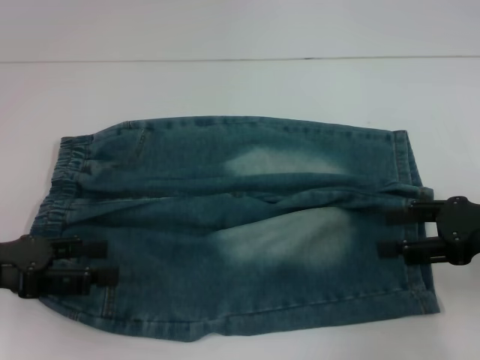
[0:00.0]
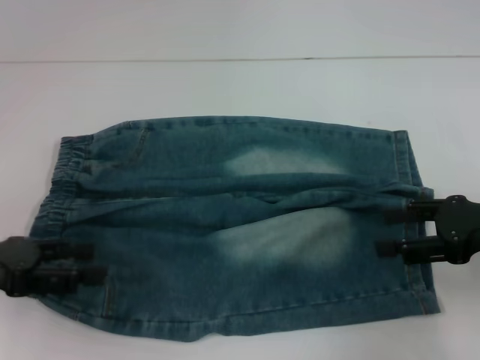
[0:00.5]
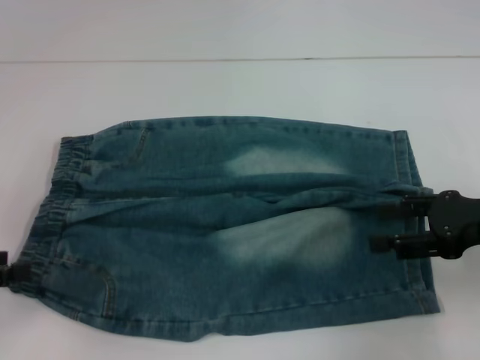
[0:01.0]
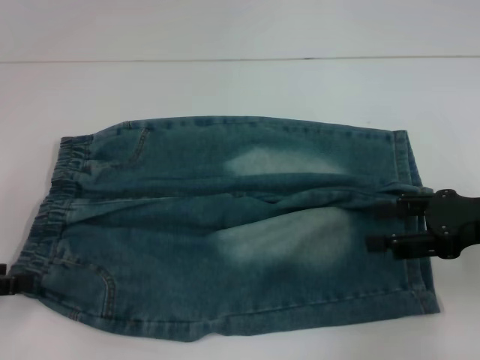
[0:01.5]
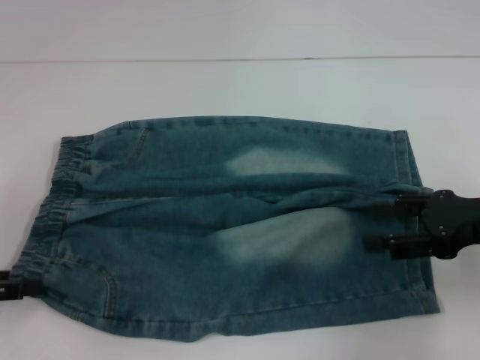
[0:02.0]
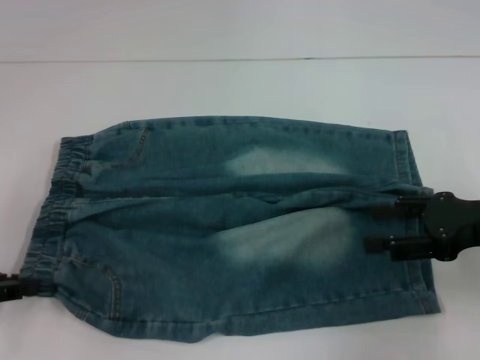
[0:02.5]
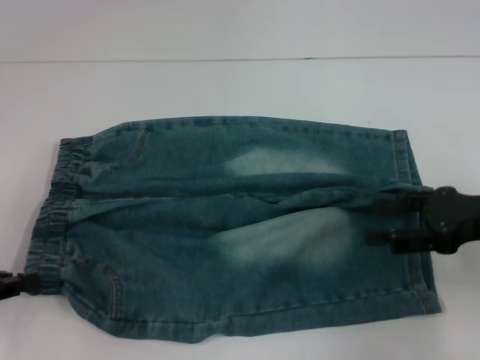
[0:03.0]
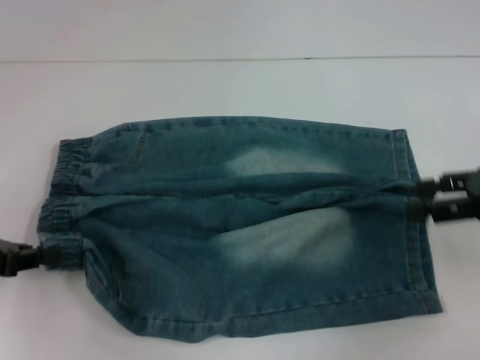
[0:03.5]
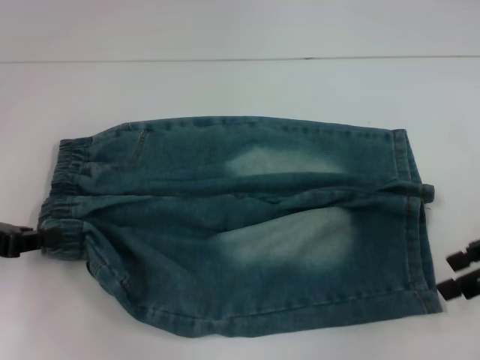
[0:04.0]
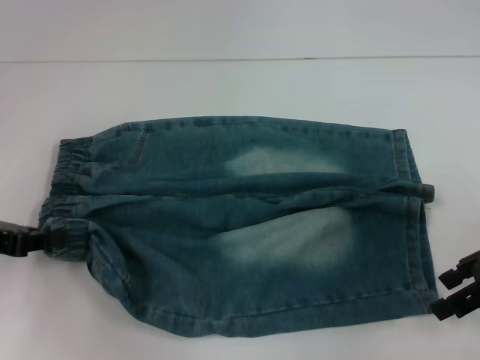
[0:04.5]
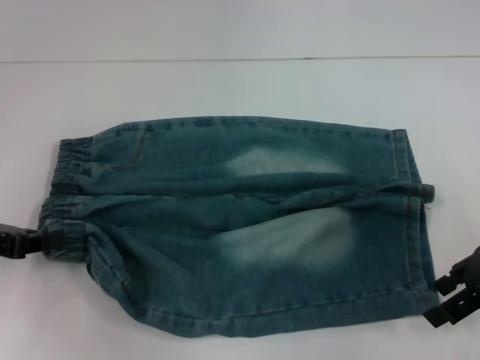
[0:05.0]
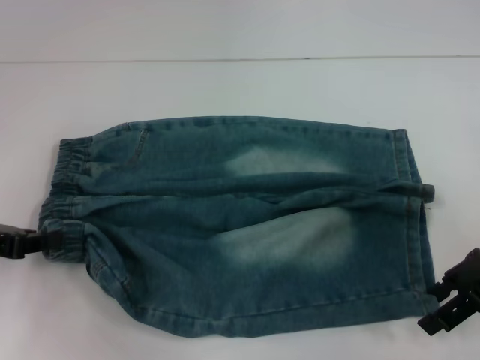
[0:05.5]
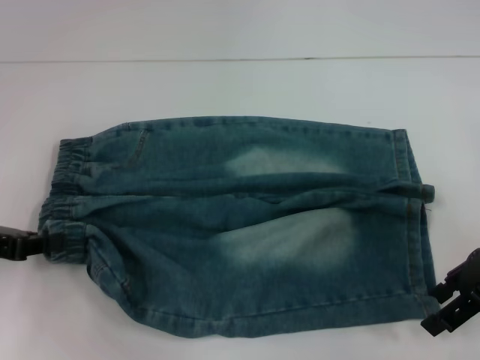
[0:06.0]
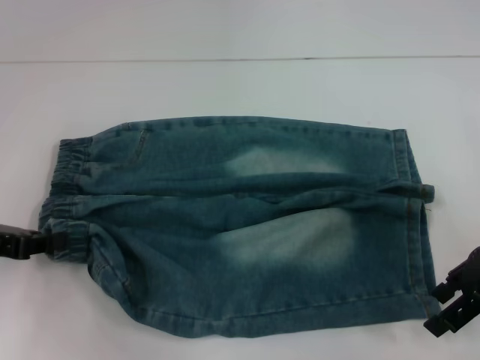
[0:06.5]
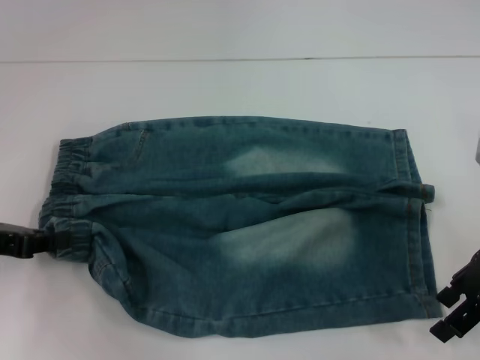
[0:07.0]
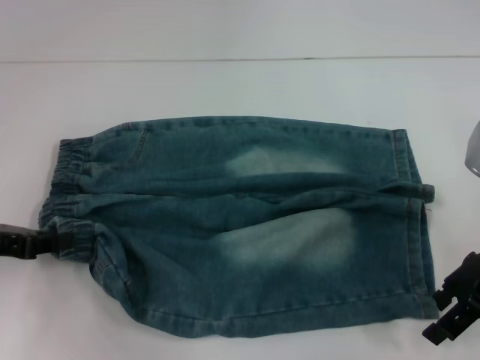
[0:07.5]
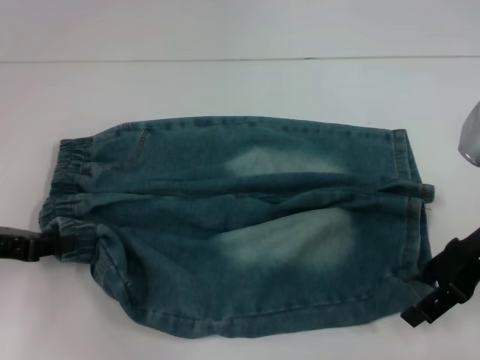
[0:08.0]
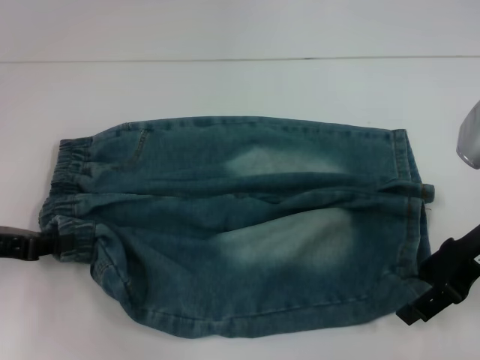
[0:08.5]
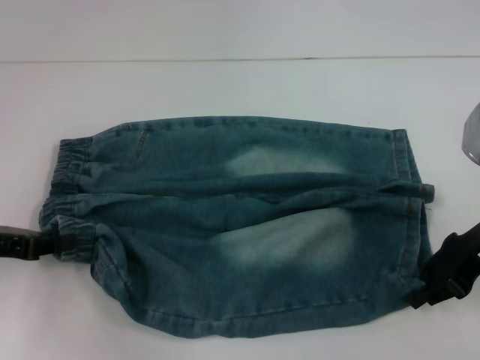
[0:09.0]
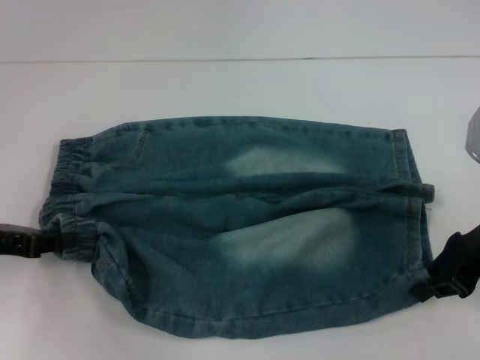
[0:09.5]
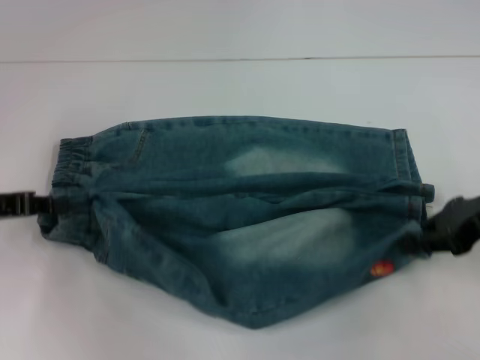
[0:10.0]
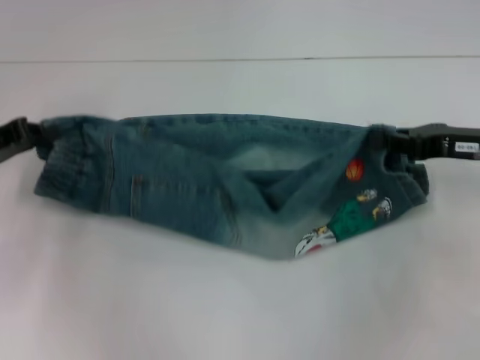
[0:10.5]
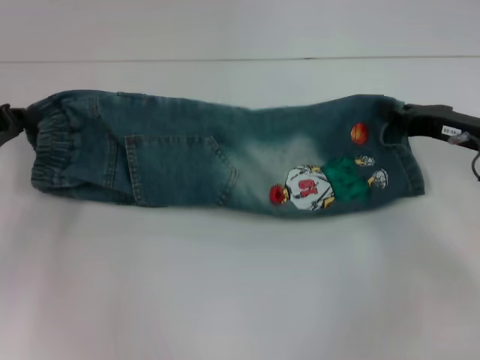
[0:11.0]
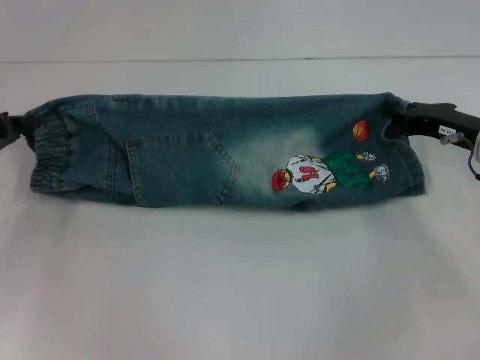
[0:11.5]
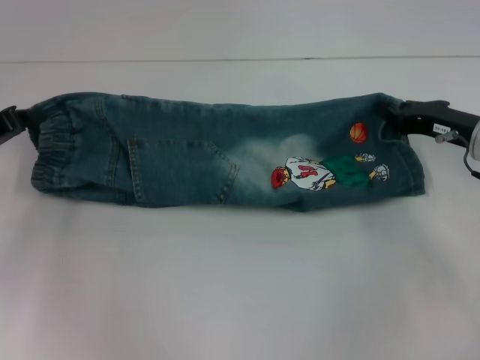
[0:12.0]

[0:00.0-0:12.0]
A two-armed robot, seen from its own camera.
Step, 0:00.0 to 0:02.5: Hold the lower left waistband with your left hand.
Step, 0:03.0 to 0:08.5: Grab the lower right pant leg with your right hand.
0:00.0 to 0:02.0: The left gripper is displaced to the left by approximately 5 cm.
0:02.0 to 0:04.0: The left gripper changes place by approximately 5 cm, and closes up.
0:04.0 to 0:06.0: There are only small adjustments of the grippers.
0:06.0 to 0:08.0: The grippers stay close to where they were, moving slightly.
0:08.0 to 0:10.0: The right gripper closes its fingers.
0:10.0 to 0:12.0: The right gripper shifts approximately 5 cm downward.

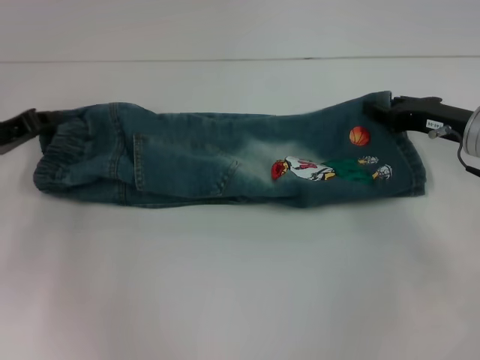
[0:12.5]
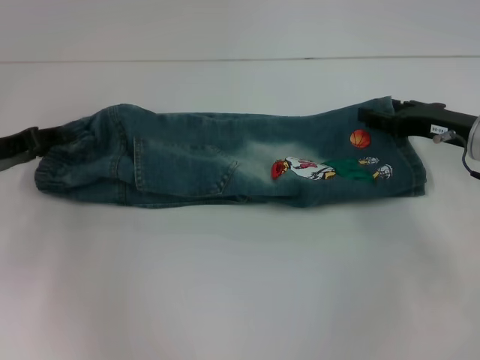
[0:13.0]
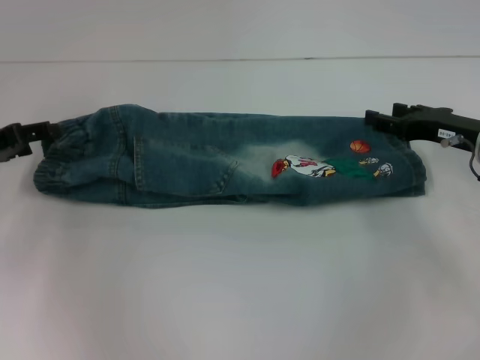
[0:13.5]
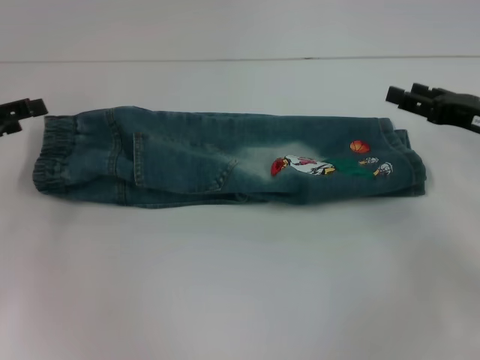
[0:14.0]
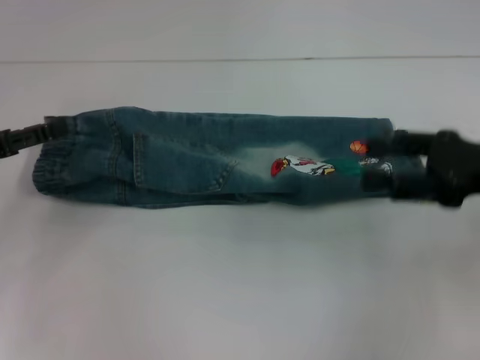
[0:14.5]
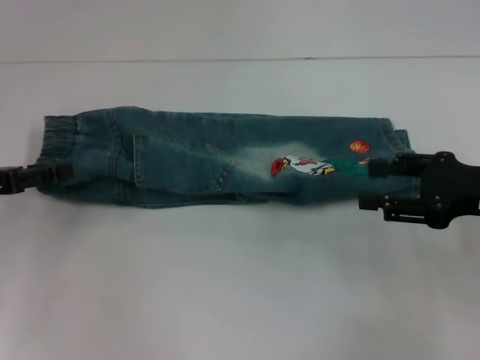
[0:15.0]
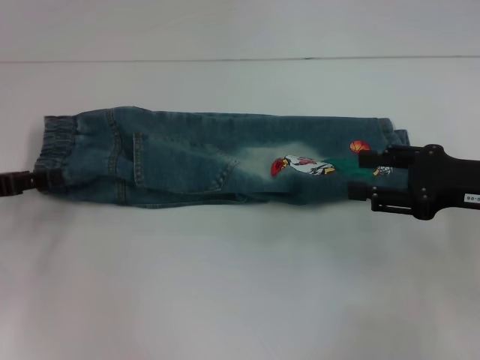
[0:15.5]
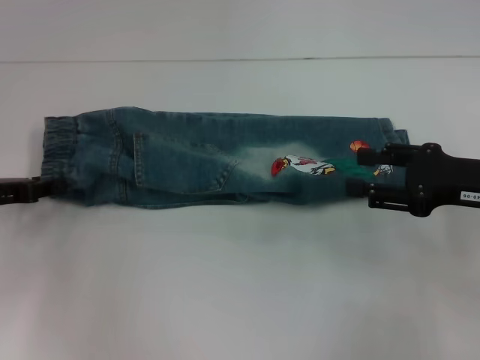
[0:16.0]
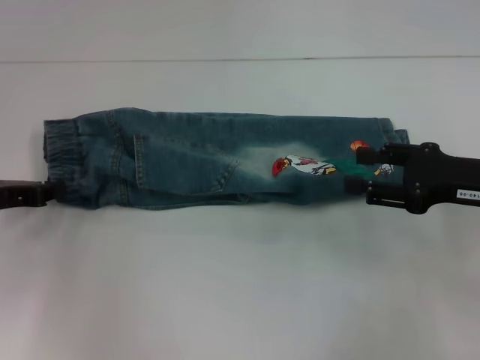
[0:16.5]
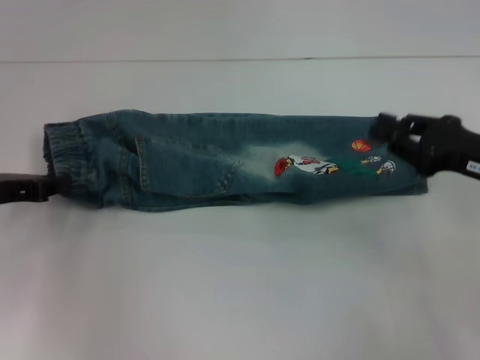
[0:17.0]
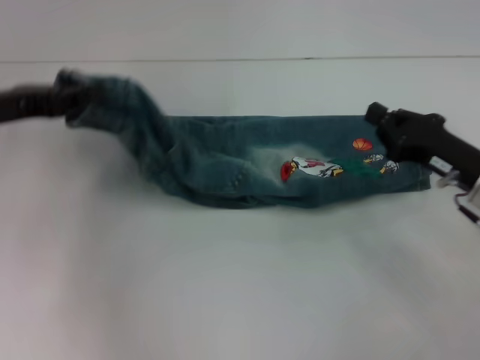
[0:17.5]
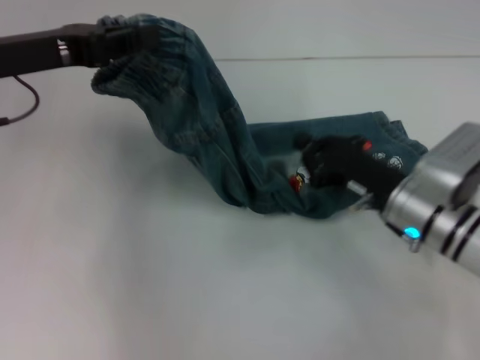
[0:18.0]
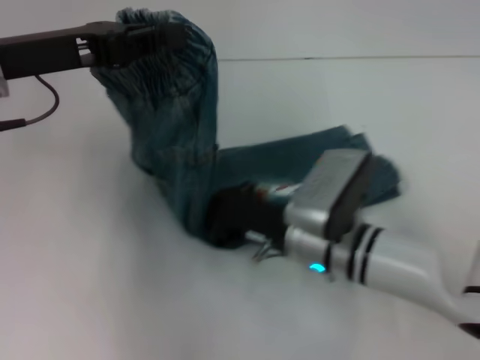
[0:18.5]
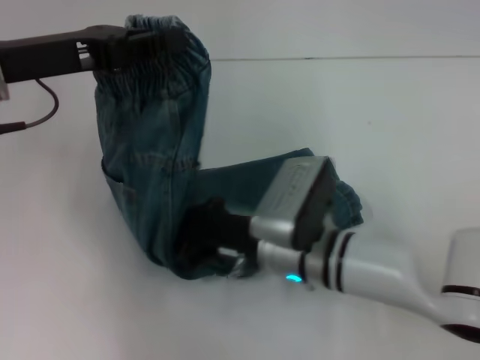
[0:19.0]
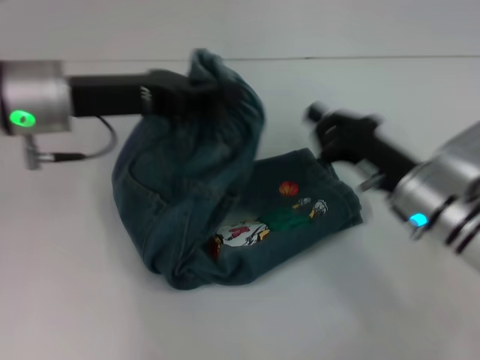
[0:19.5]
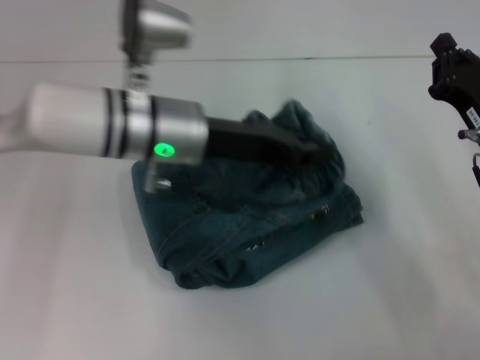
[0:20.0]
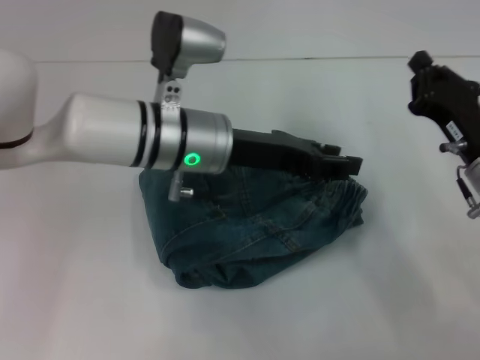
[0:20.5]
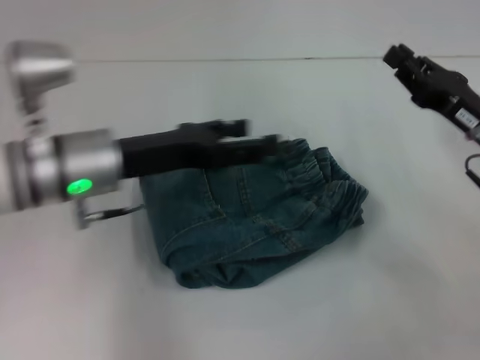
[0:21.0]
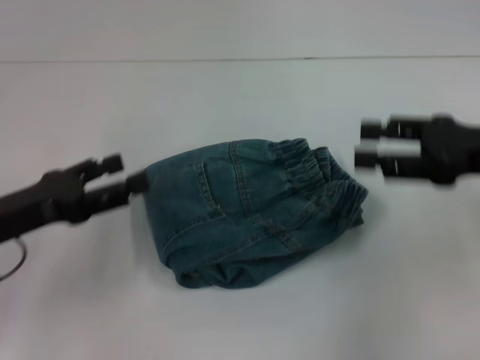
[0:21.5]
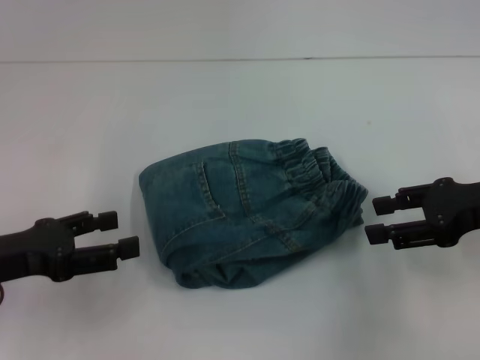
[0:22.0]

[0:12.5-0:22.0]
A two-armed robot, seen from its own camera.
Step, 0:14.0 to 0:16.5: Hold the waistband with your left hand.
Step, 0:17.0 to 0:19.0: Press the middle of the pants with your right hand.
Step, 0:19.5 to 0:21.0: Fold to the right with your left hand.
0:12.5 to 0:14.5: The left gripper travels backward by some 5 cm, and opens its fingers. The right gripper goes roughly 10 cm backward and upward, and opens its fingers.
0:14.5 to 0:16.5: The left gripper changes place by some 5 cm, and closes up.
0:16.5 to 0:18.0: The right gripper shifts roughly 10 cm to the left and downward, and closes. The left gripper heads upward and to the right, covering approximately 15 cm.
0:18.0 to 0:20.0: The right gripper travels to the right by roughly 5 cm, while the left gripper shifts some 15 cm to the right.
0:20.0 to 0:22.0: The left gripper shifts approximately 25 cm to the left and backward, and opens up. Meanwhile the right gripper goes approximately 5 cm upward, and opens.

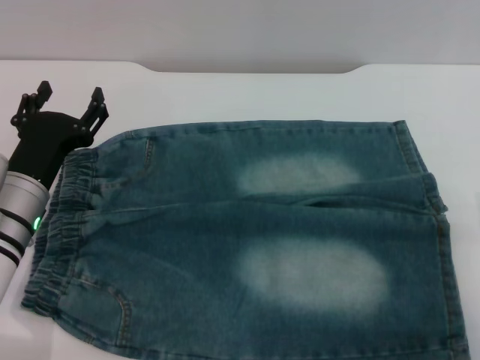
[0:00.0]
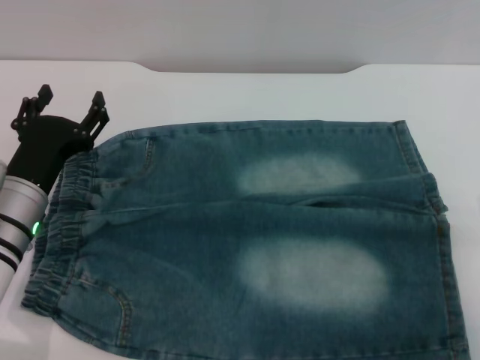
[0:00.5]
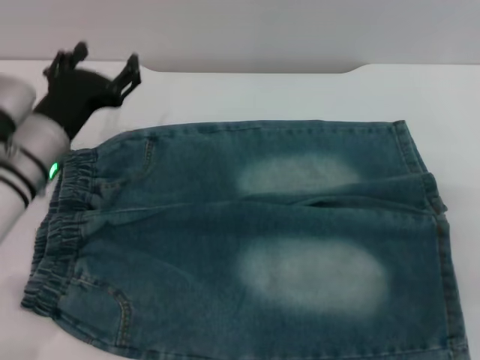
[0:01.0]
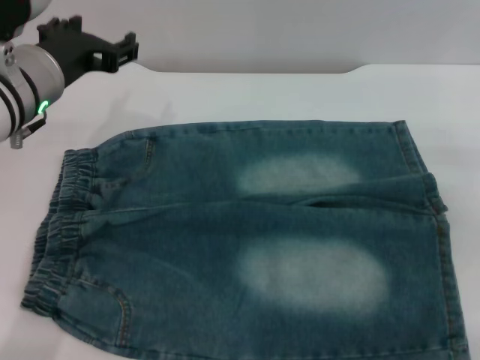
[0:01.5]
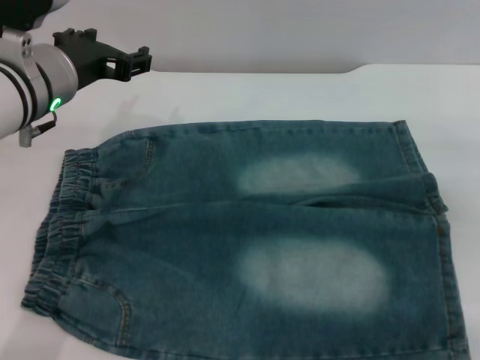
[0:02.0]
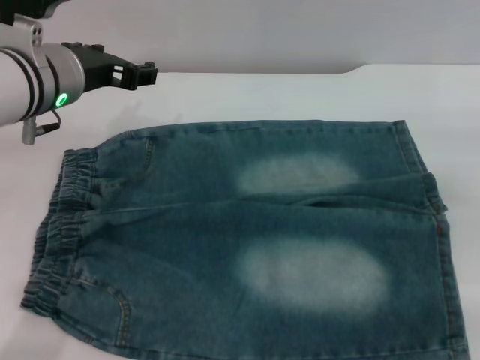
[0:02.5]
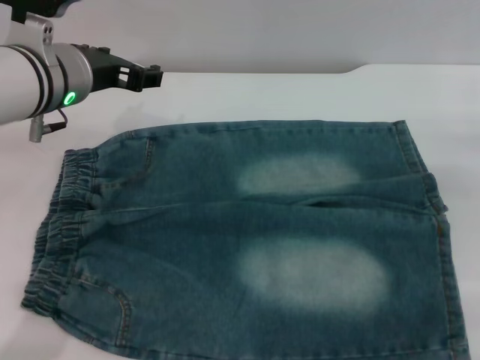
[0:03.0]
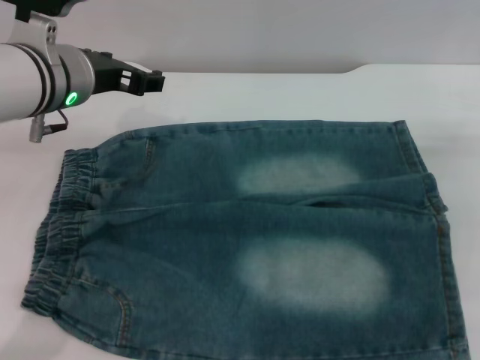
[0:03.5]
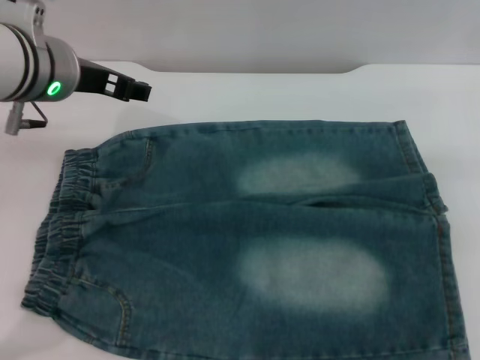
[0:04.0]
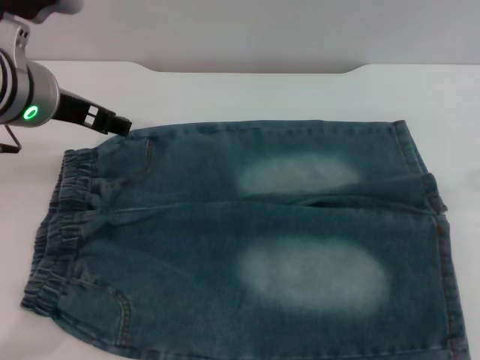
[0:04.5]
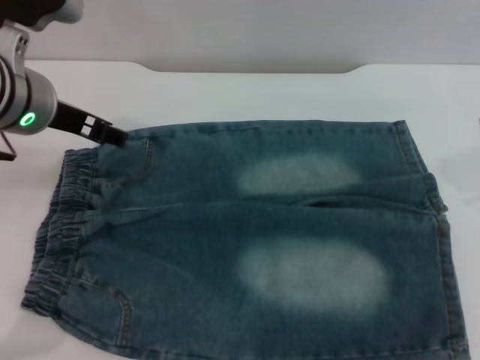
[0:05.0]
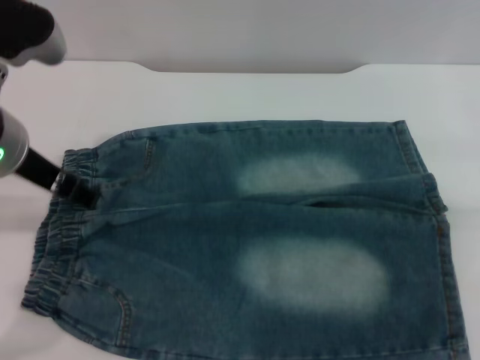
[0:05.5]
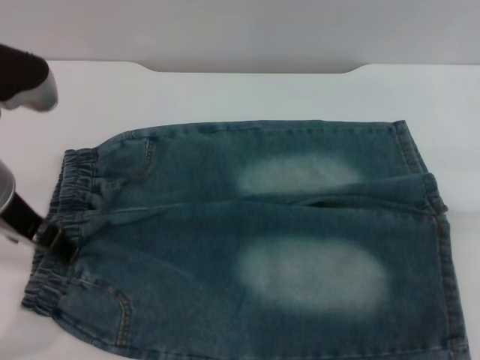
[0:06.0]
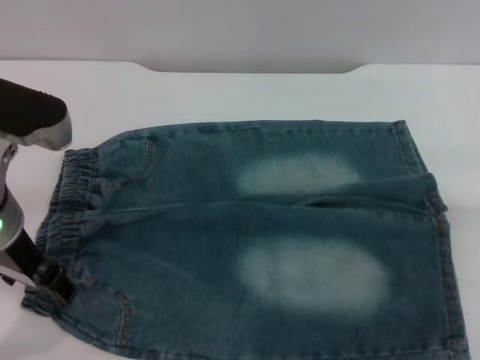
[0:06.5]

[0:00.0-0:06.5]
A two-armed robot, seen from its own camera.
0:00.0 to 0:02.0: The left gripper moves upward and forward, roughly 15 cm.
0:04.5 to 0:06.5: The left gripper heads backward, covering approximately 5 cm.
